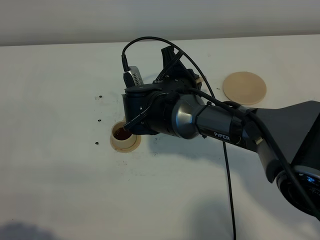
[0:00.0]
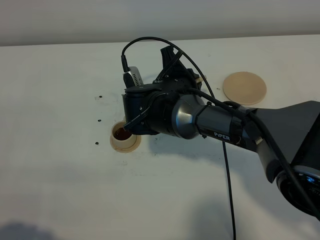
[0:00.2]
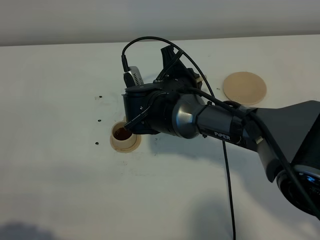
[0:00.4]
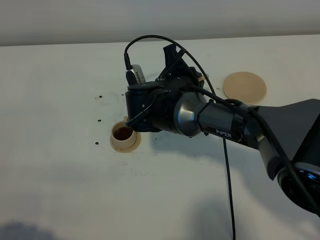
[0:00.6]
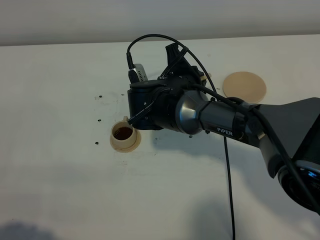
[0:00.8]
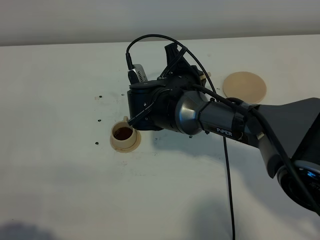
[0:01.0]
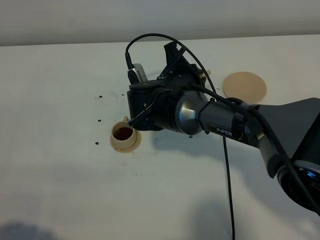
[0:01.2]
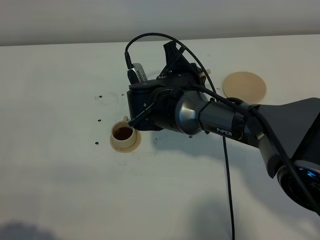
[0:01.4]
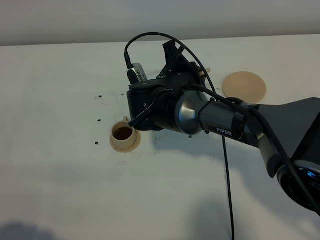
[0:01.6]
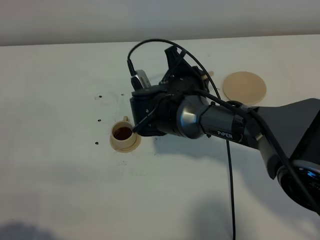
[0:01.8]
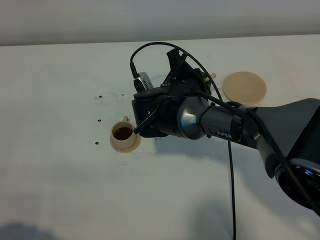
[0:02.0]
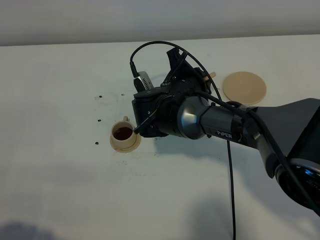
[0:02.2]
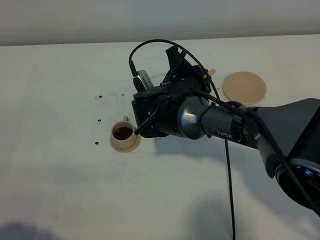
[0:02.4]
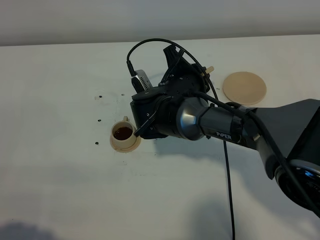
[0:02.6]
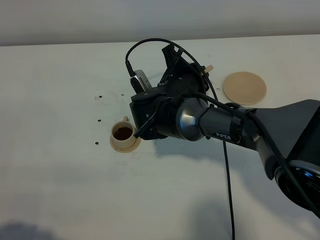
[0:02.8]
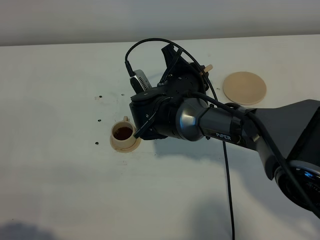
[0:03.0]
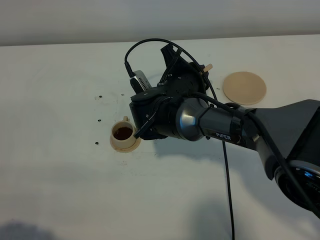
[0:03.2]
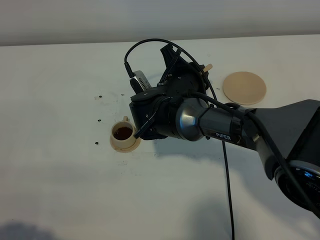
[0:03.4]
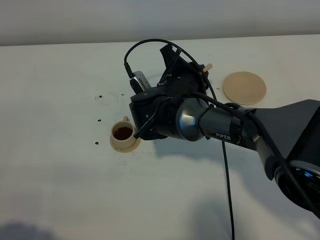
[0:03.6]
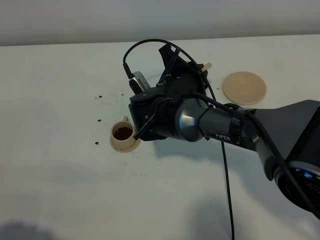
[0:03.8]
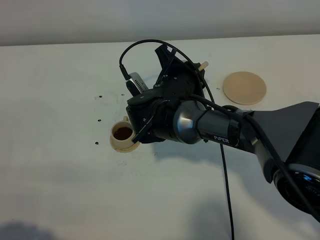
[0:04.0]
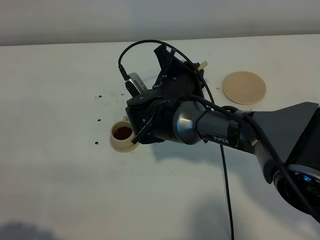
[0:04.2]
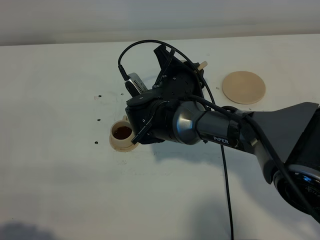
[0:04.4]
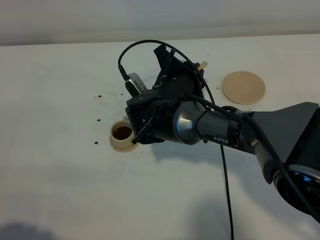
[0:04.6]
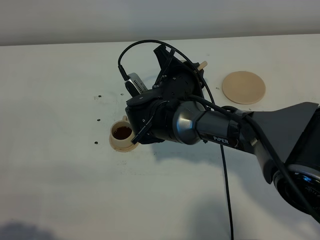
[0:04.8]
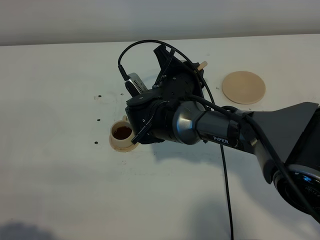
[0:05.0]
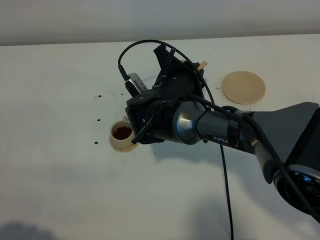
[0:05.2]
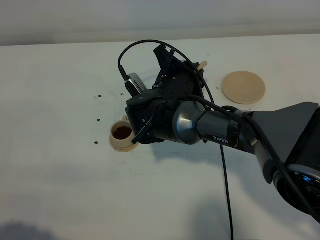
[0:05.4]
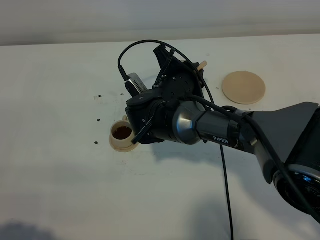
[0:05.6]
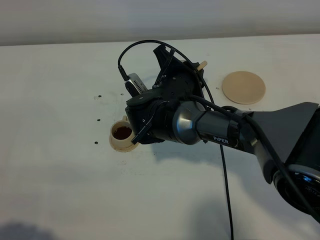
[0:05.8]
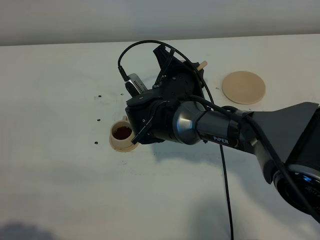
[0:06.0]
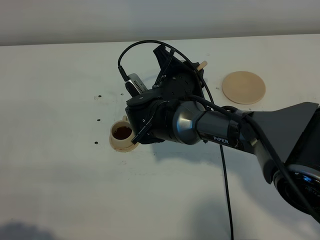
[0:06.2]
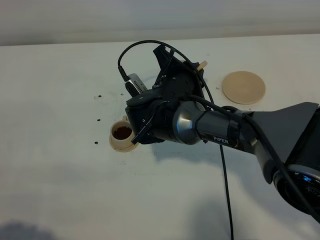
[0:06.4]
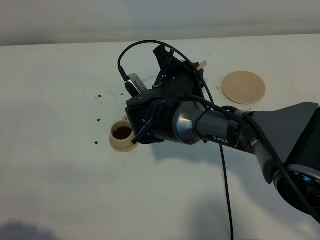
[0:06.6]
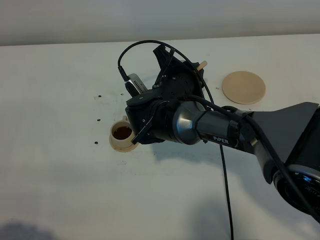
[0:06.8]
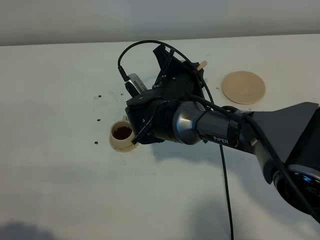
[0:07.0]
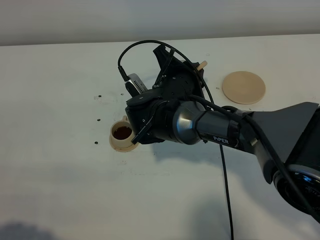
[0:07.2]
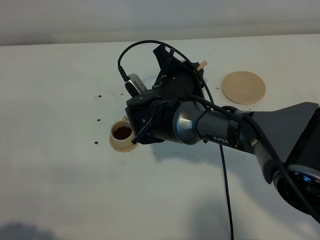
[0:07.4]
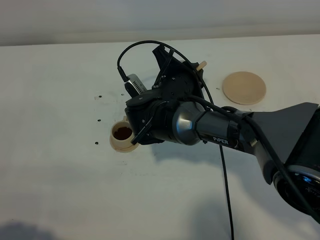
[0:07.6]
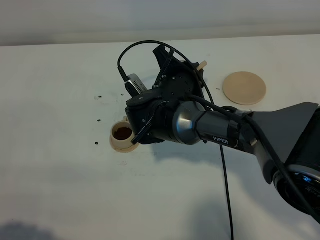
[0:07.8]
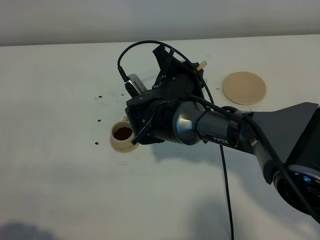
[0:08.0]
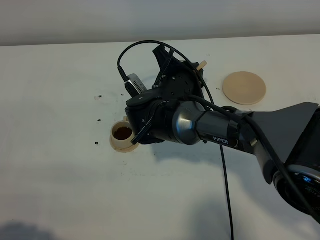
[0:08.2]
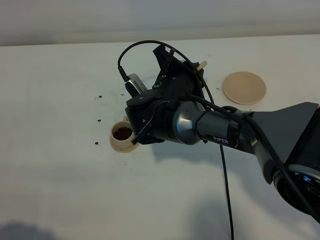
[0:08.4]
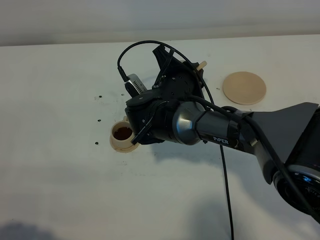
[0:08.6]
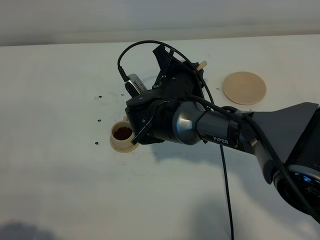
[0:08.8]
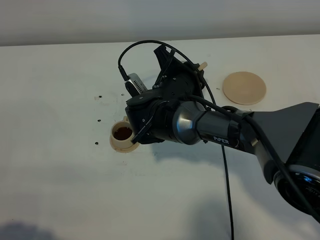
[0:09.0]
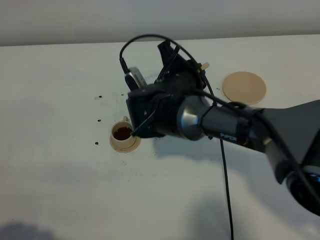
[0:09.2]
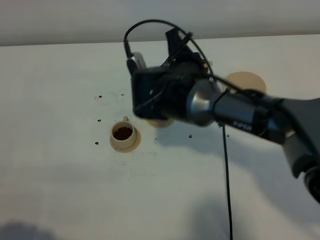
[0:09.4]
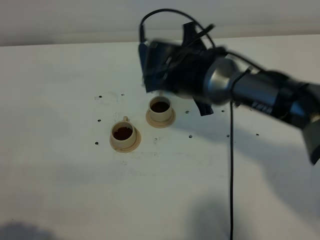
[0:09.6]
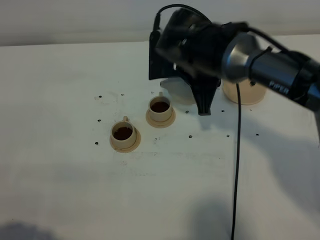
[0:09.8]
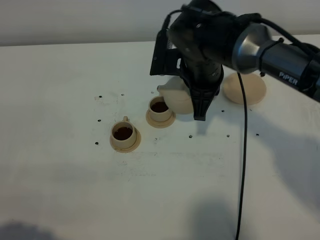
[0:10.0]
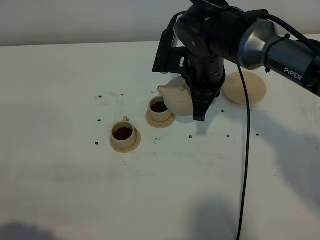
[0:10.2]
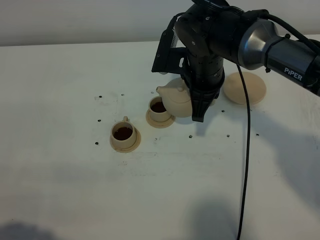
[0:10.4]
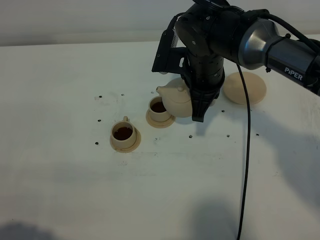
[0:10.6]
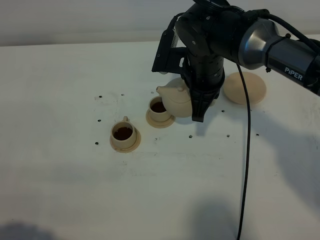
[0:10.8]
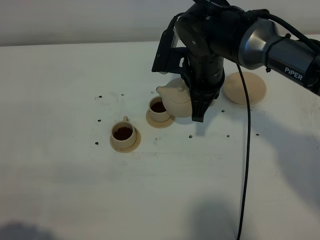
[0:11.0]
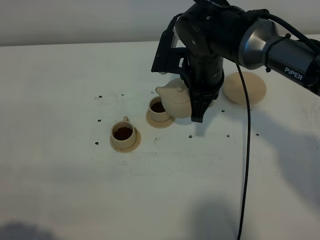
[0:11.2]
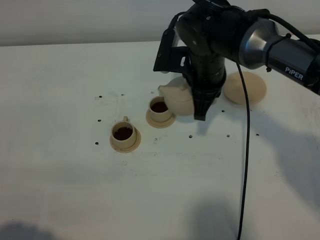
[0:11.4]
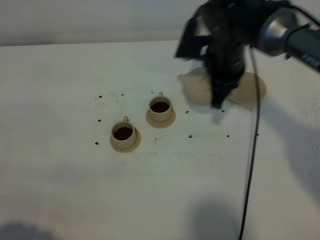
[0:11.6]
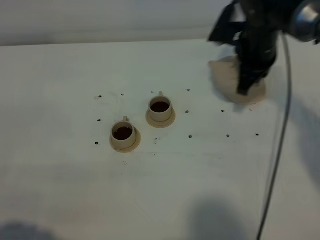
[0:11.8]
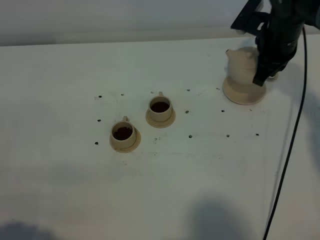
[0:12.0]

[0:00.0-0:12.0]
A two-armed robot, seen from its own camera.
Task of the whole recording: grasp the brown teapot and pour the tea into the two brown teacups one by one, put the brown teapot back in its original place.
Step, 0:00.0 to 0:09.2: Pour tea into the teacup with the right gripper.
0:00.0 to 0:01.6: Both grippers stay put.
0:01.6 to 0:03.0: There are only small adjustments of the grippers.
0:03.0 to 0:04.4: Both grippers stay about where they are.
0:04.4 to 0:09.0: Both grippers stay about where they are.
0:09.0 to 0:10.4: The right gripper is displaced upward and to the right by roughly 10 cm.
0:10.4 to 0:12.0: The right gripper is displaced to the right and forward by about 15 cm.

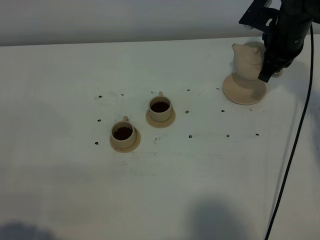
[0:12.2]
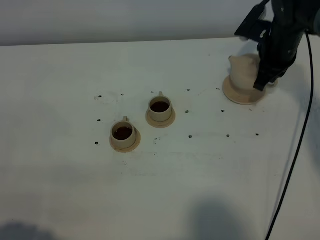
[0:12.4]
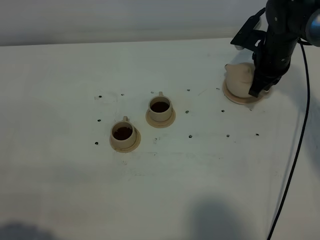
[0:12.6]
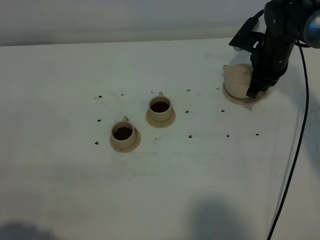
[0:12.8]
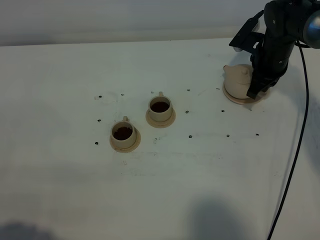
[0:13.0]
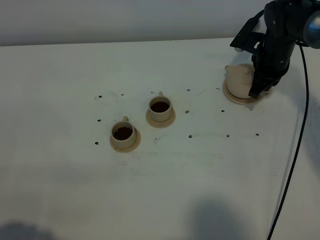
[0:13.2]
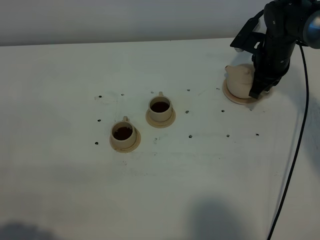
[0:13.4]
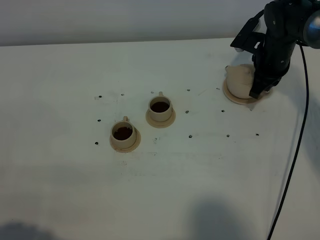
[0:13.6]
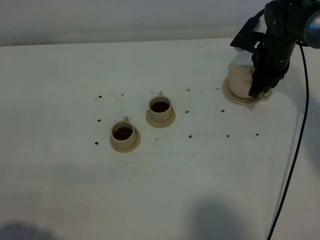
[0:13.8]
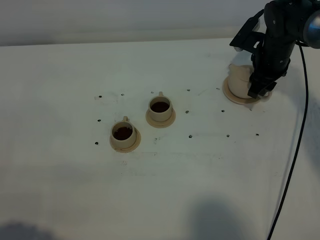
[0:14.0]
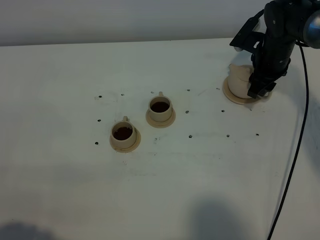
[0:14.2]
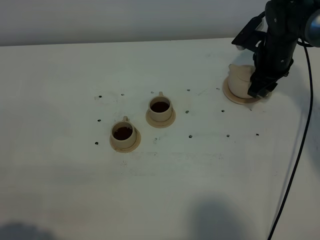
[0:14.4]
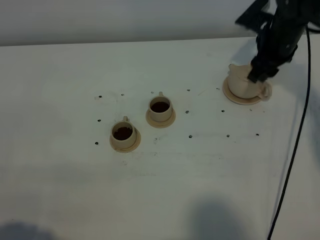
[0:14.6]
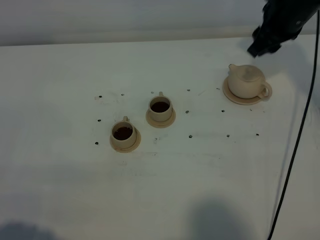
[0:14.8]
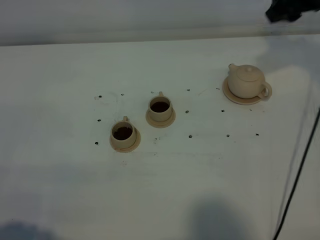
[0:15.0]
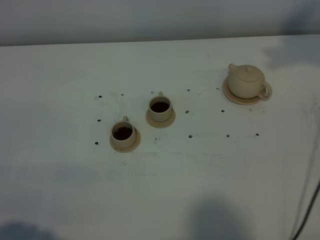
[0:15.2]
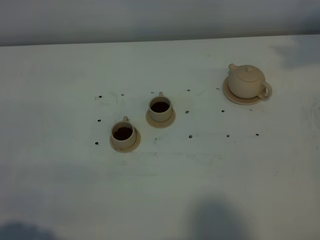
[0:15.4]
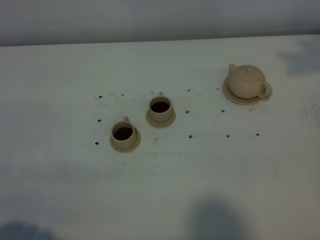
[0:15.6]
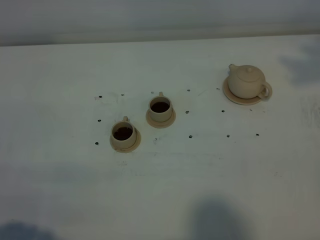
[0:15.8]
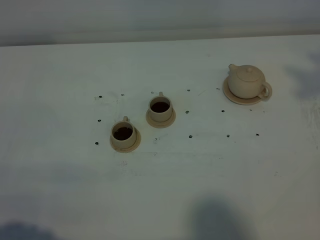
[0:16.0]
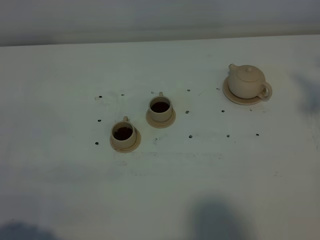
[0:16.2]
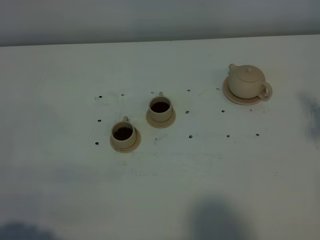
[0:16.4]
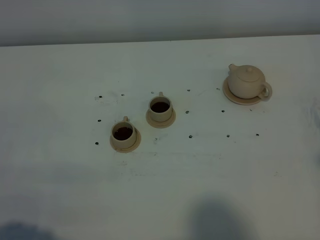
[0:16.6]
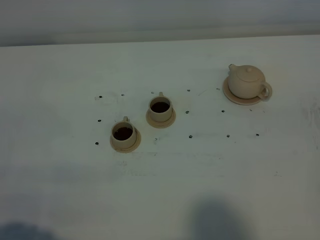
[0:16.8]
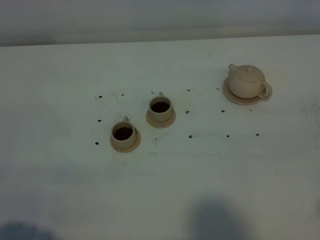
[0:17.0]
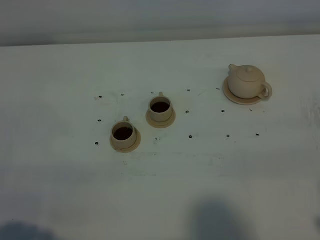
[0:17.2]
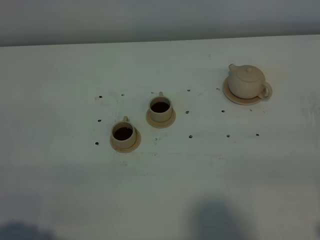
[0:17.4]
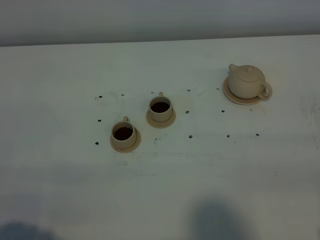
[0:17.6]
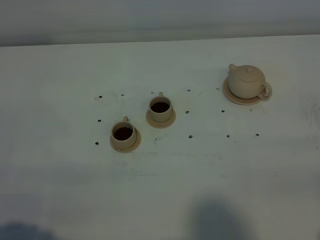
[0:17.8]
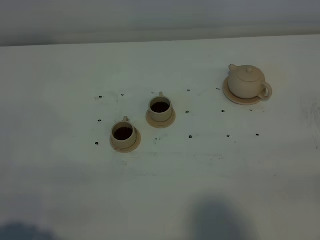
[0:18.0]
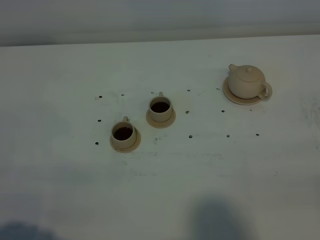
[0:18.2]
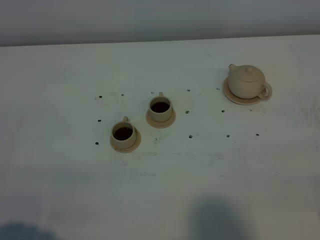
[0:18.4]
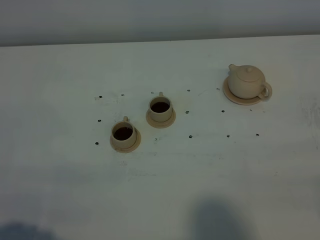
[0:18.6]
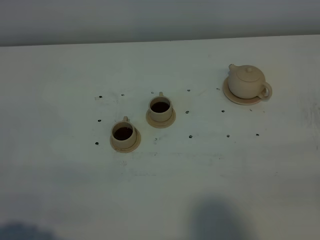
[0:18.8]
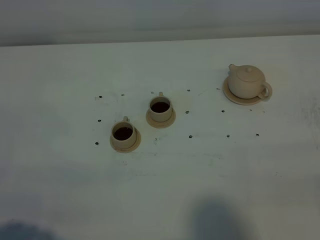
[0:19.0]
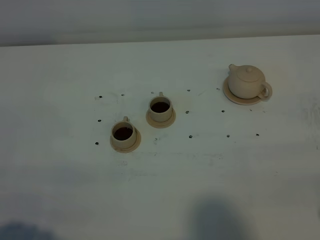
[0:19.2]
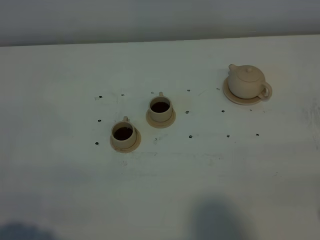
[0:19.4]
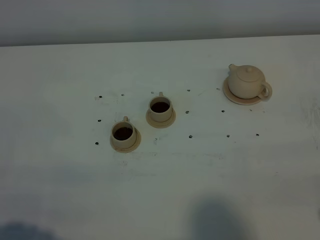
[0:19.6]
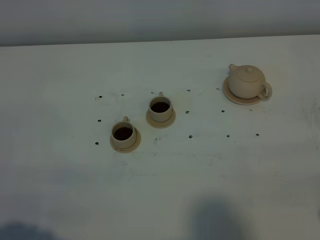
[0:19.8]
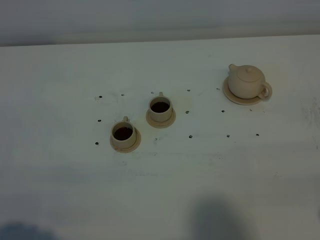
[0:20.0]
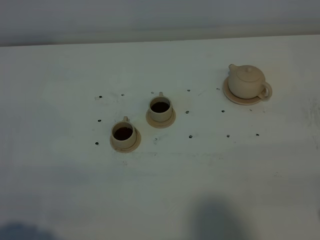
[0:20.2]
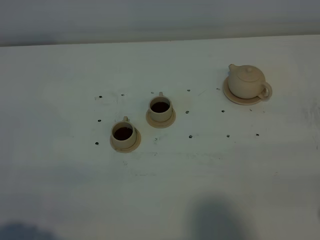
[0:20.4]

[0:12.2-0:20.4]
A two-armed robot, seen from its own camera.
Task of the whole recording: grasp the brown teapot and pour the tea into the two brown teacups one by one, put the brown teapot back in its original place.
0:12.2 to 0:13.8: The right gripper is displaced downward by approximately 5 cm, and opens up.
0:13.8 to 0:15.4: The right gripper travels upward and backward by roughly 30 cm, and opens.
0:18.8 to 0:20.4: Both grippers stay about where they are.
